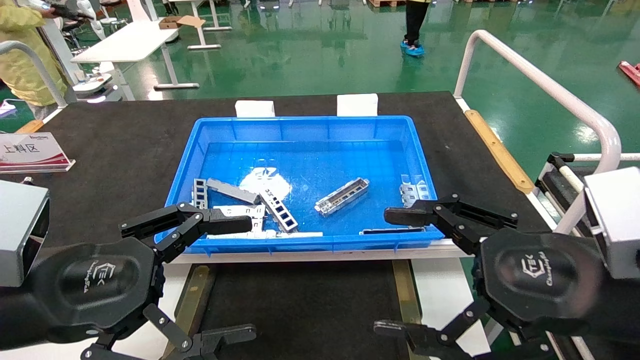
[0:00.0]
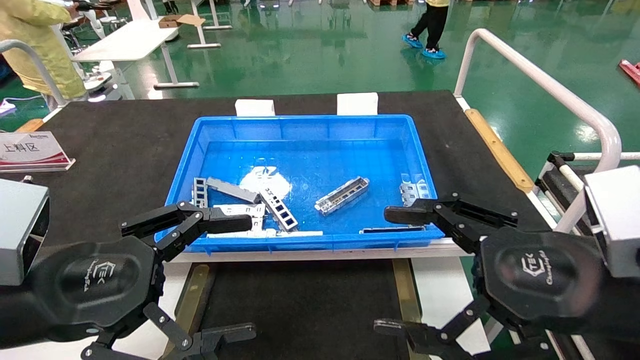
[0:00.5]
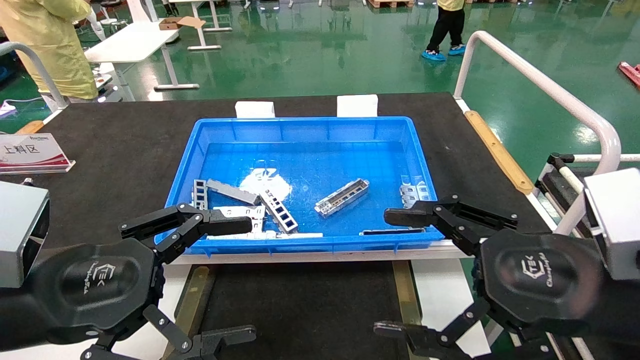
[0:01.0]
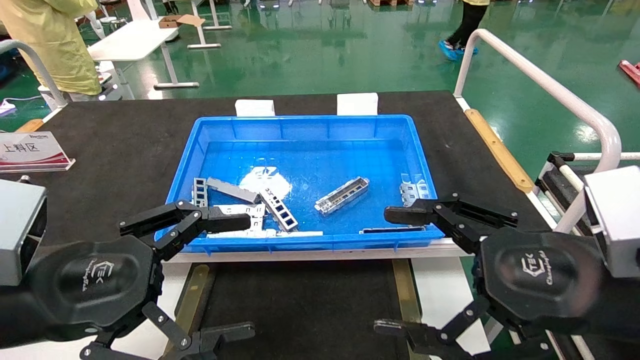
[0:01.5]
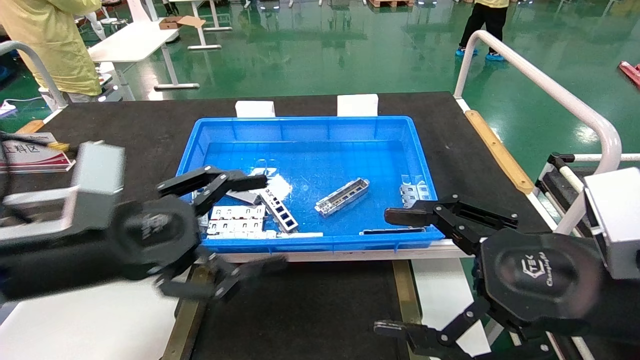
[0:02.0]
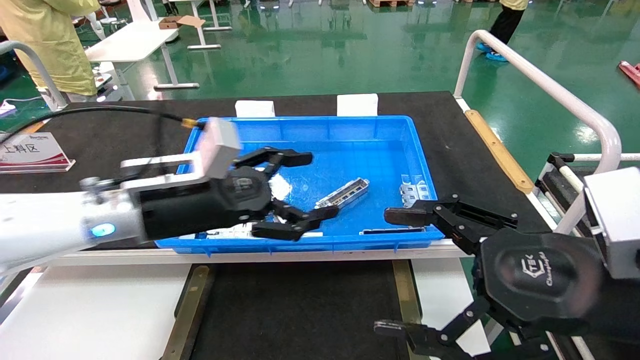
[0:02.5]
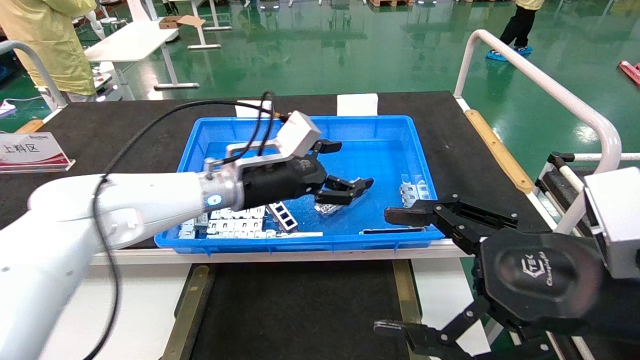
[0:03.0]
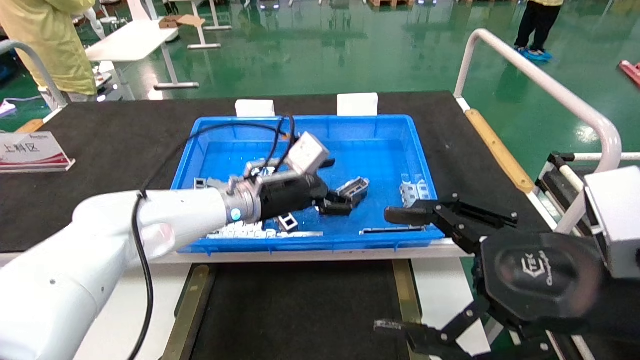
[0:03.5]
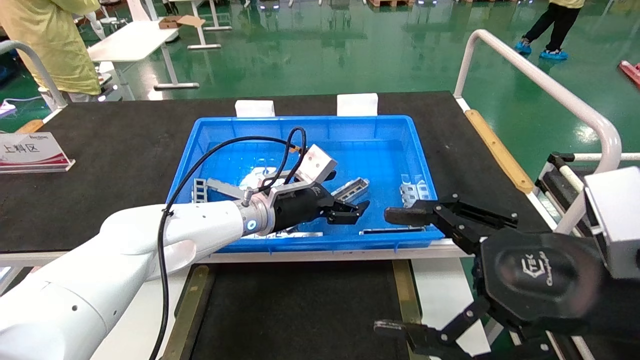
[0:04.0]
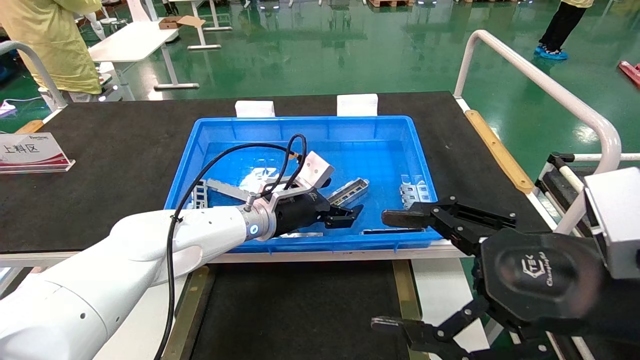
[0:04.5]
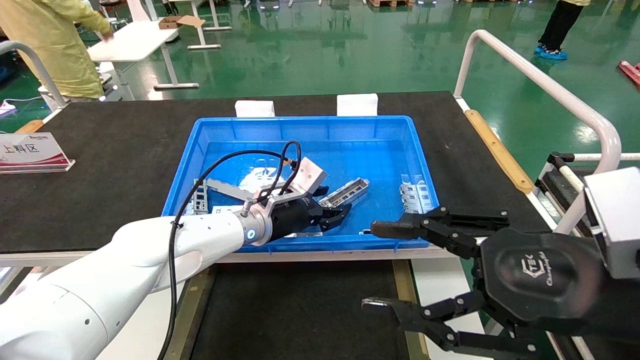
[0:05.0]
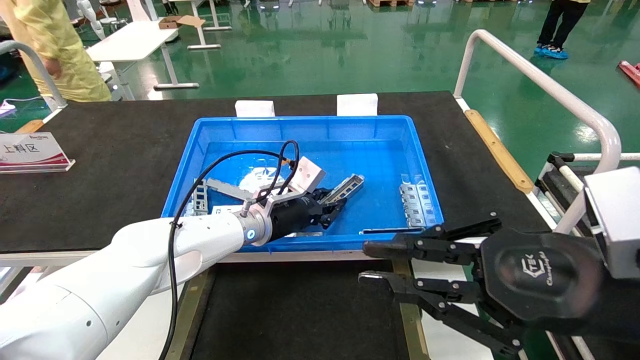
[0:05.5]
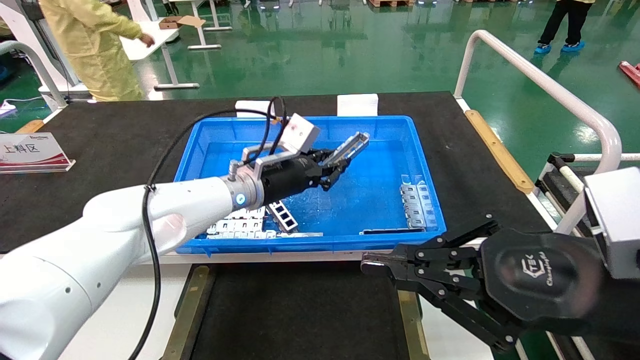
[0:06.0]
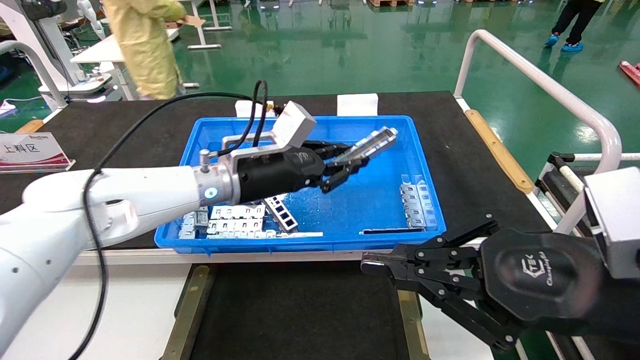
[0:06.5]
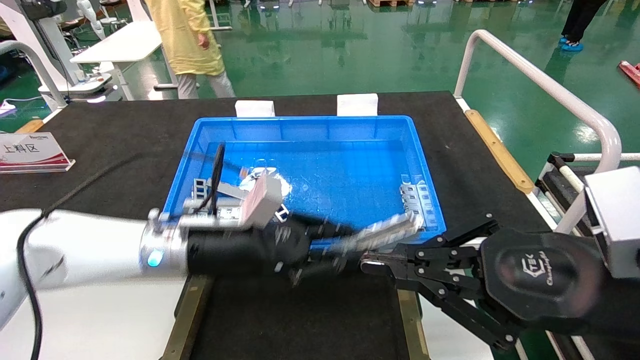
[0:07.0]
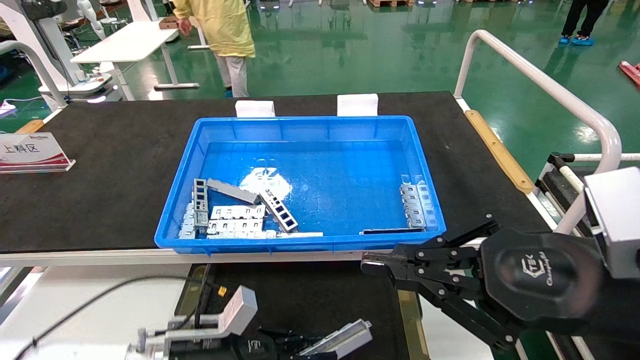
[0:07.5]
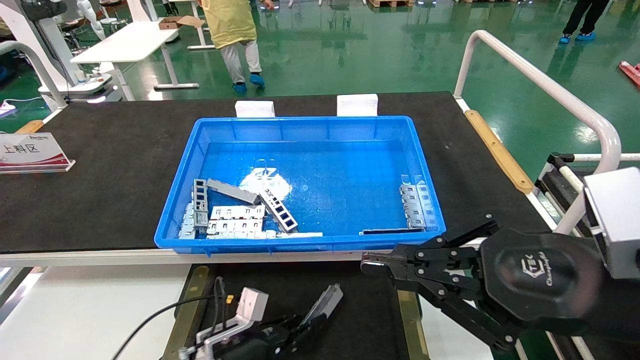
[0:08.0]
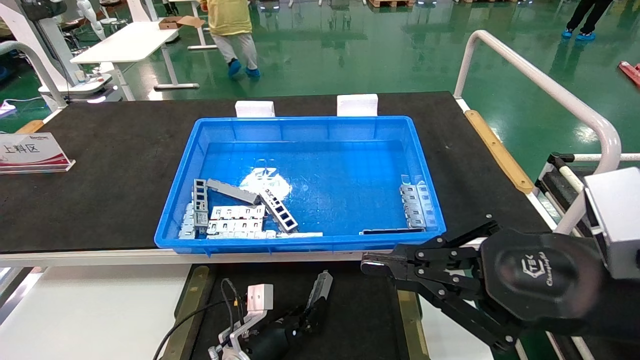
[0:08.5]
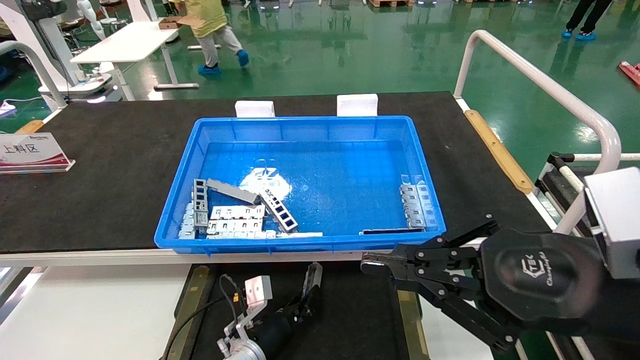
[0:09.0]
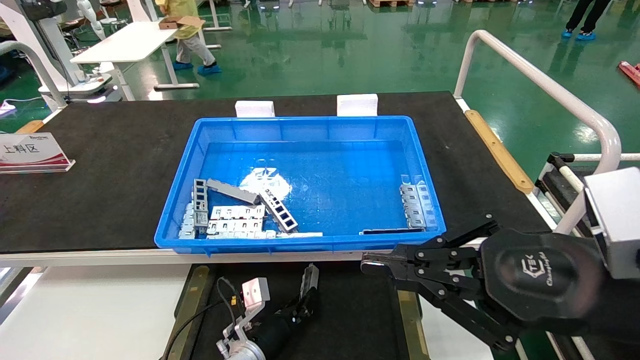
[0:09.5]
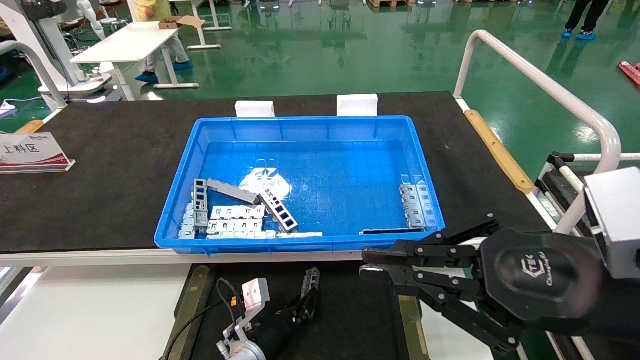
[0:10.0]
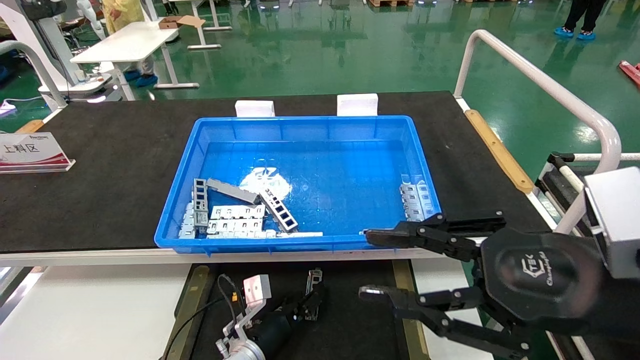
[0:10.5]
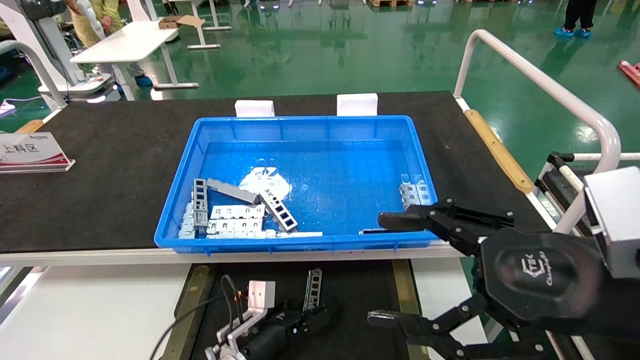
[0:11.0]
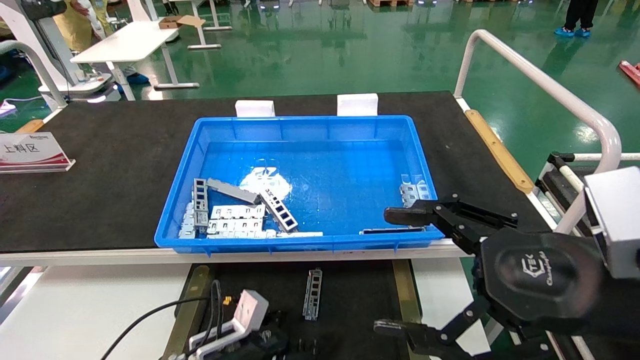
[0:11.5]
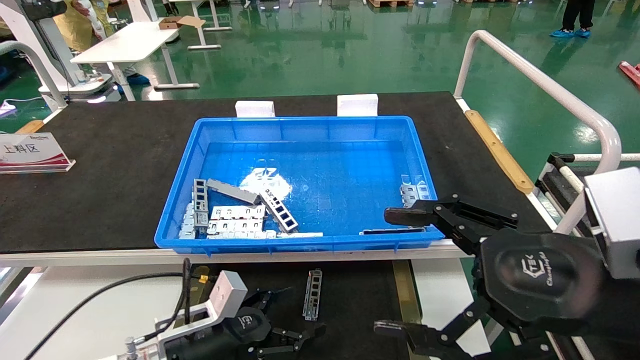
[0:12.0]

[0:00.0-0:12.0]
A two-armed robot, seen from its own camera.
Task of the whole recording: Grasp the part with one hand and place it on the black container.
Step, 0:02.0 to 0:05.5: Pick up the front USB bracket from the feeding area.
Step, 0:06.0 to 0:10.0: Place the front USB bracket into the box.
0:00.0 to 0:02.0: The left gripper travels forward by approximately 5 cm.
0:02.0 to 0:04.0: The left gripper travels forward and to the right by some 25 cm.
0:04.0 to 0:06.0: The left gripper closes its fingers. Meanwhile the right gripper closes its fingers.
0:06.0 to 0:08.0: The left gripper moves downward, roughly 30 cm.
0:08.0 to 0:10.0: The left gripper moves approximately 5 cm.
0:10.0 to 0:12.0: The right gripper opens its fingers. The left gripper is displaced upward, backward and to the left by approximately 15 cm, and opens up.
